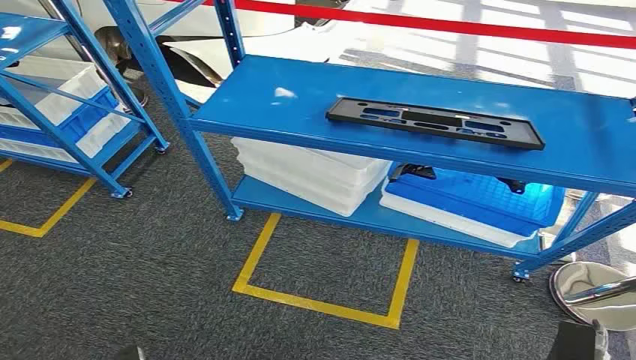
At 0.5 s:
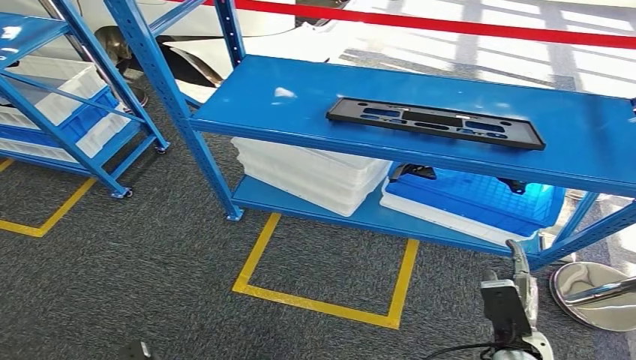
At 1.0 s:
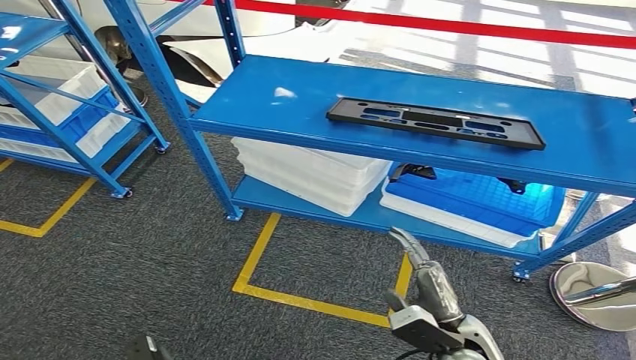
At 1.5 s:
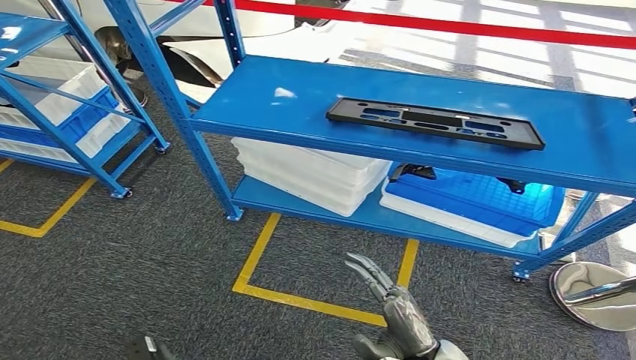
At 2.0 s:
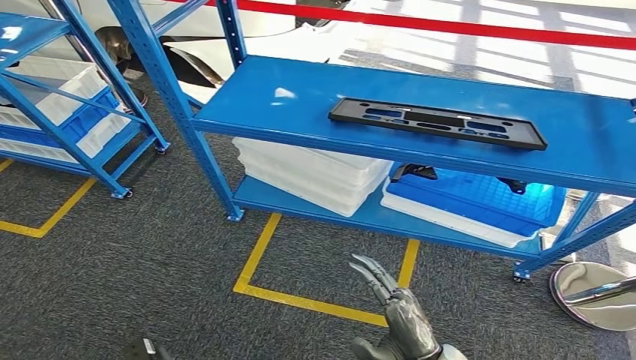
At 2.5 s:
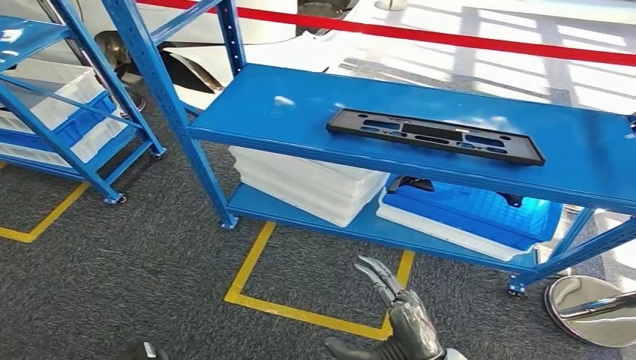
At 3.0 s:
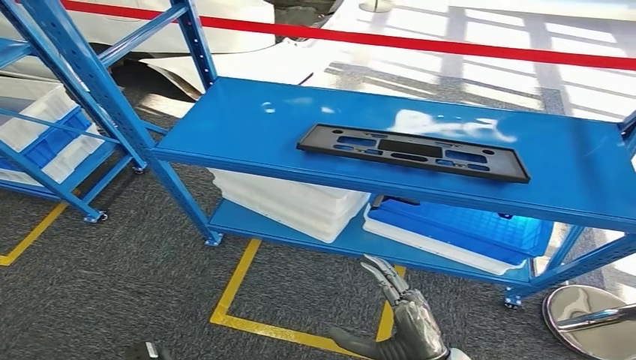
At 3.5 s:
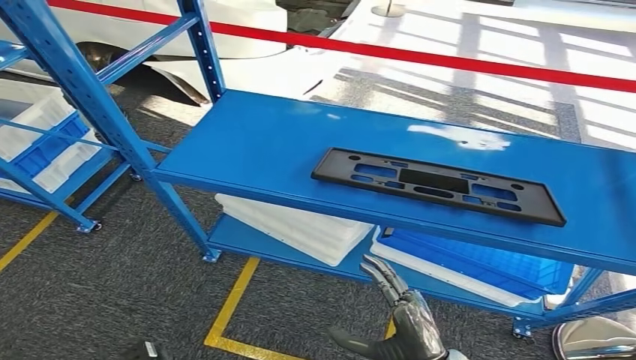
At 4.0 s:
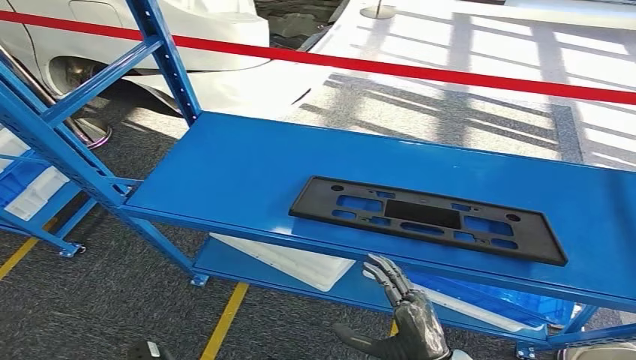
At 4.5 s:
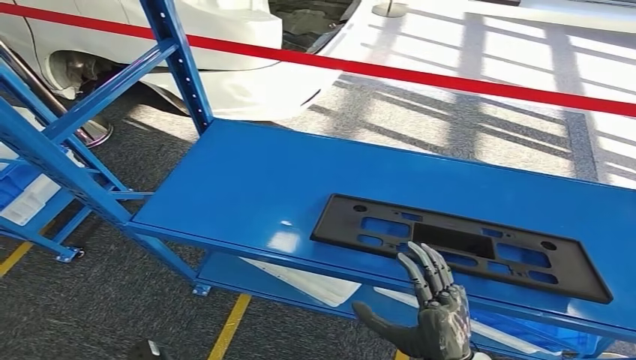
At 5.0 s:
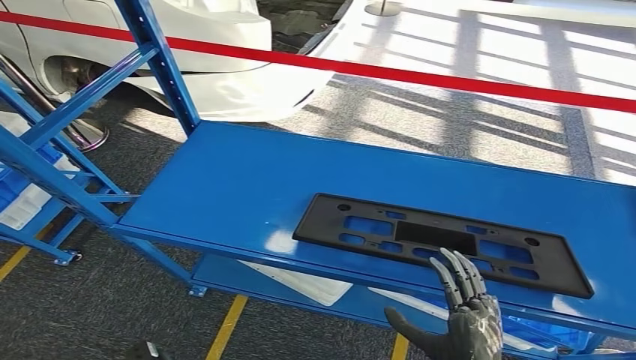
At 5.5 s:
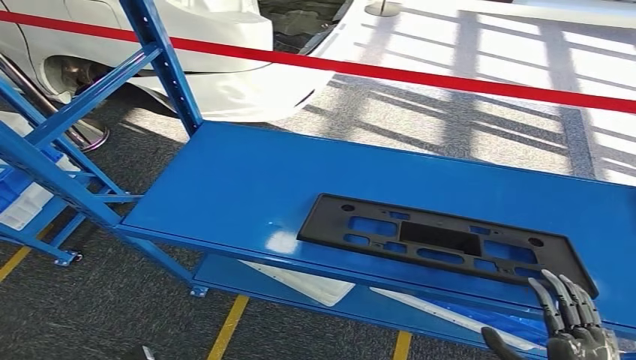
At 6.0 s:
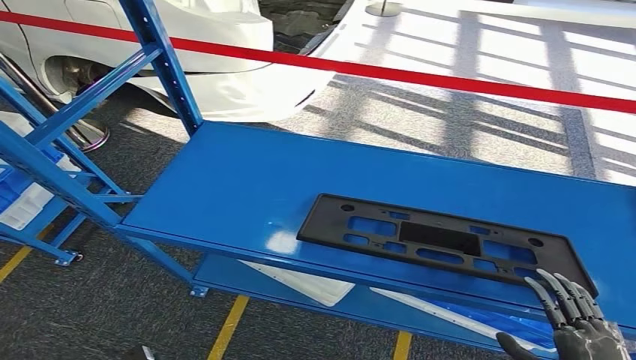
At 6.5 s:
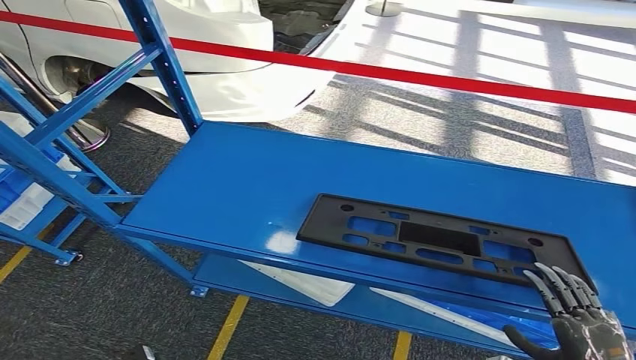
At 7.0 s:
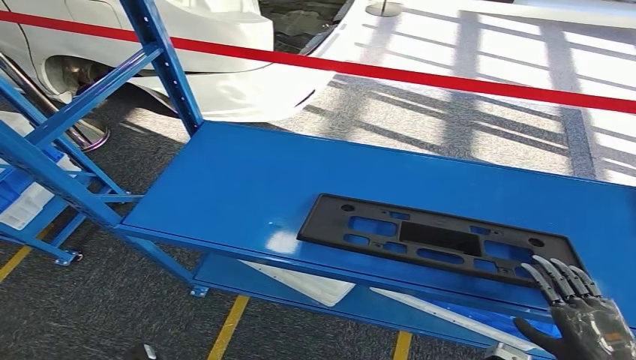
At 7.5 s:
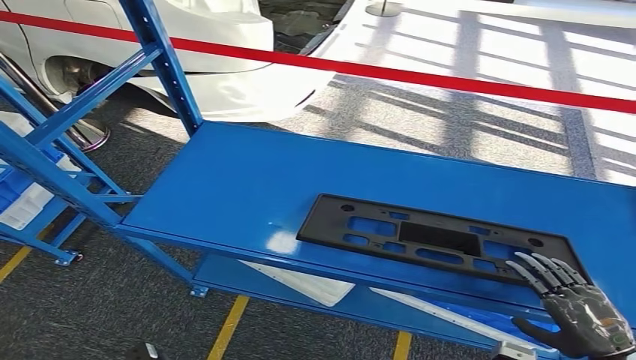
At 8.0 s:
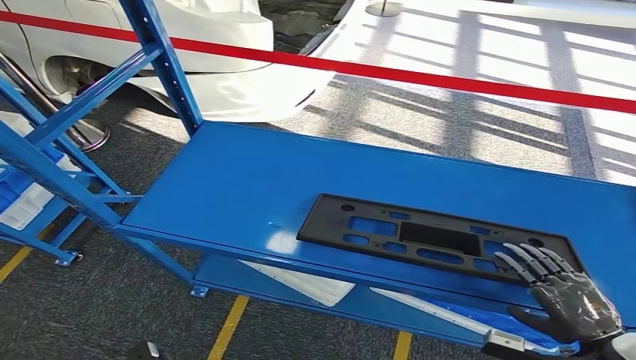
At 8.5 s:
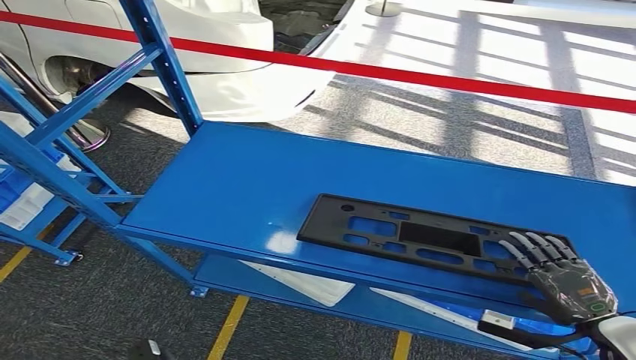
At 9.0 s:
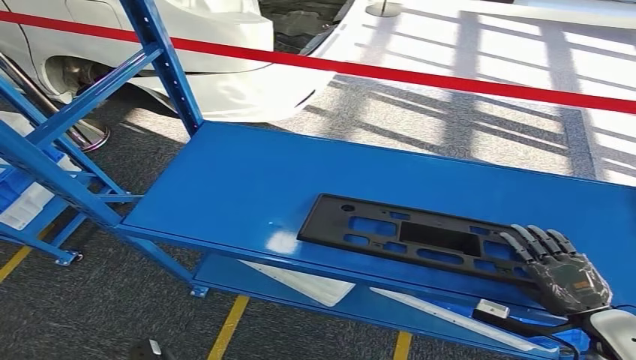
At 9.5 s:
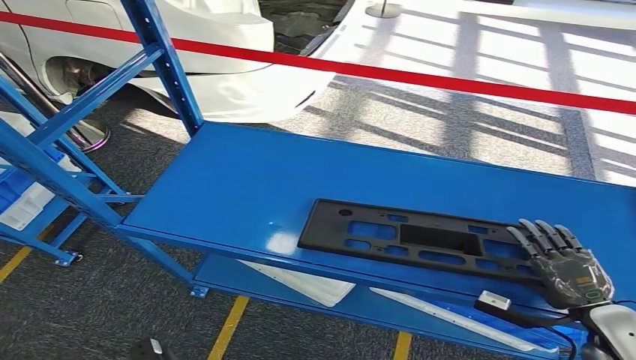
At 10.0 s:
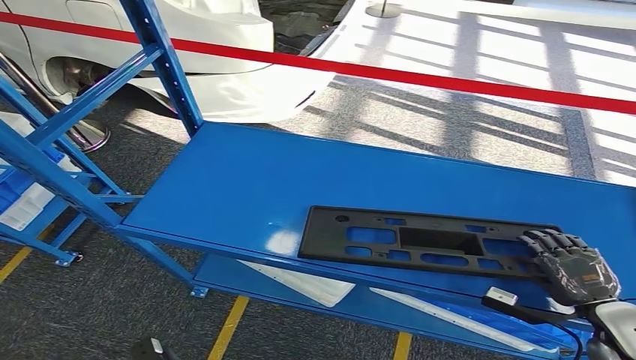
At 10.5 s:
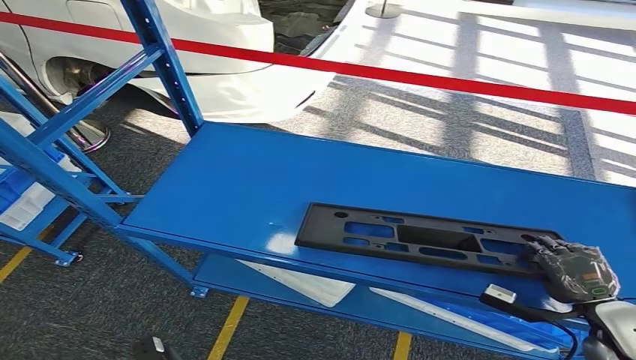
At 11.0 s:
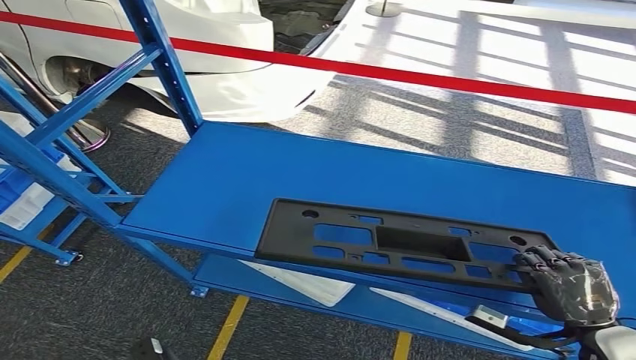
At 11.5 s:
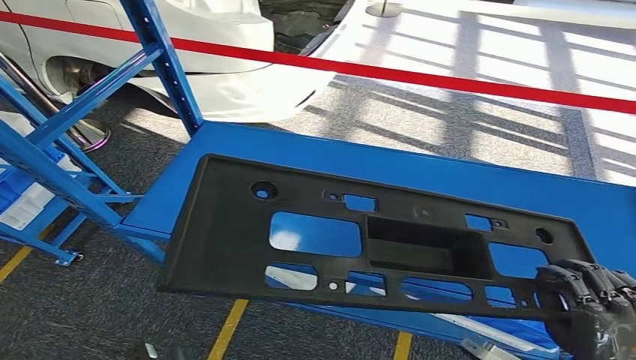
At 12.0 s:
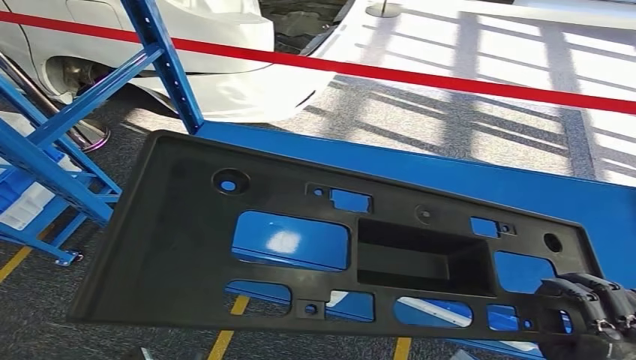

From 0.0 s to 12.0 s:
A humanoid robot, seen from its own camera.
From 6.0 s to 8.0 s: The right hand is displaced forward by roughly 10 cm.
From 8.0 s to 10.0 s: The right hand goes some 5 cm forward.
From 10.0 s to 12.0 s: The right hand travels backward, to the left and upward by some 20 cm.

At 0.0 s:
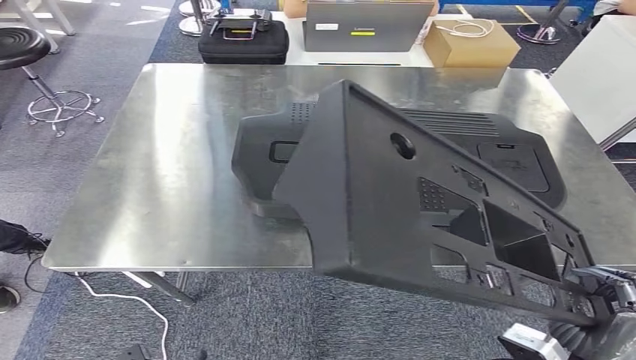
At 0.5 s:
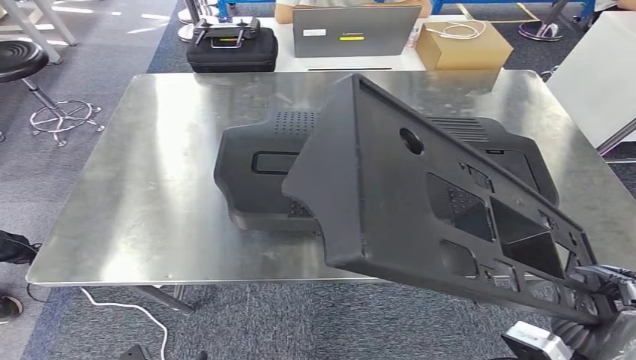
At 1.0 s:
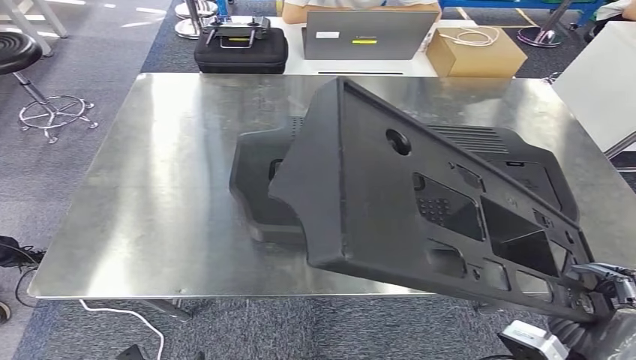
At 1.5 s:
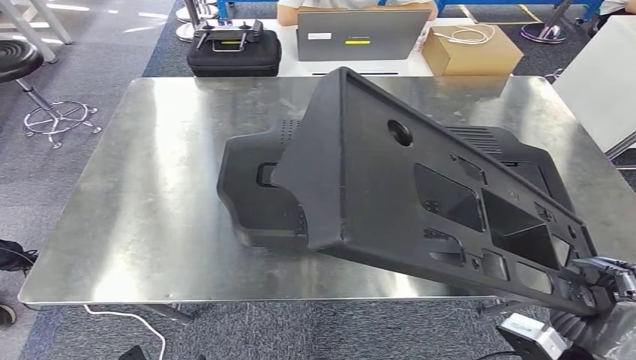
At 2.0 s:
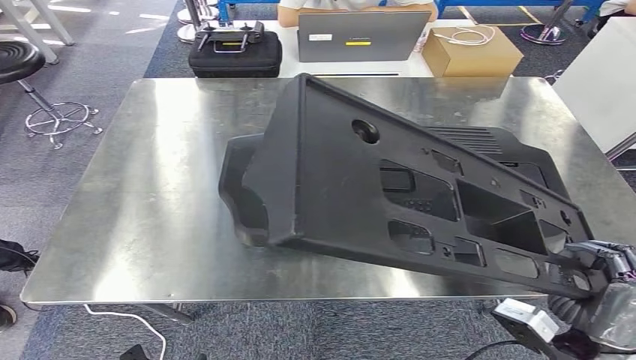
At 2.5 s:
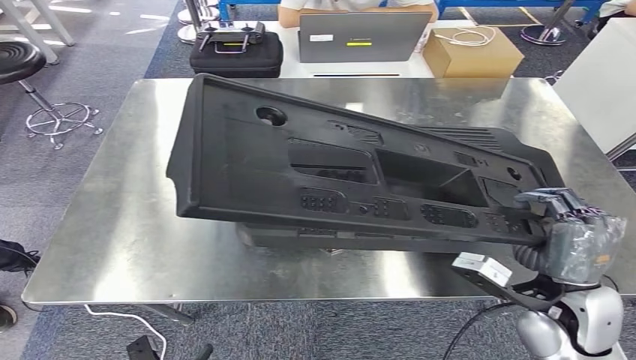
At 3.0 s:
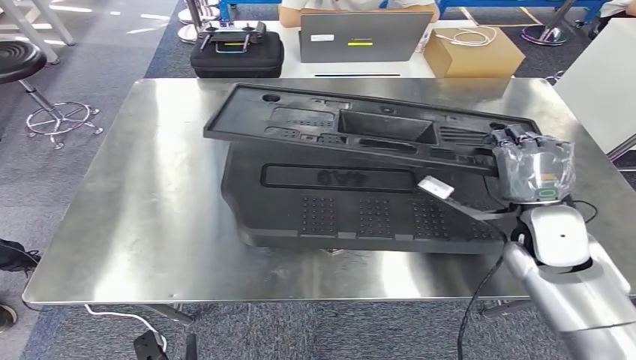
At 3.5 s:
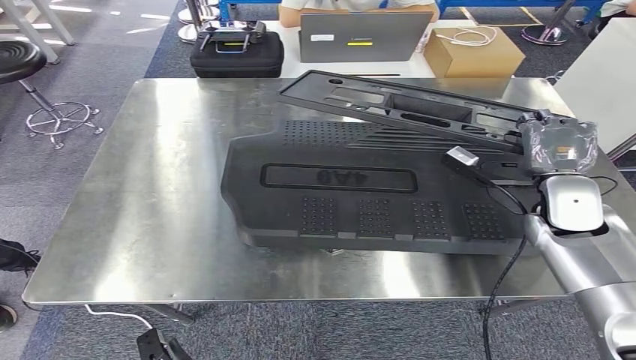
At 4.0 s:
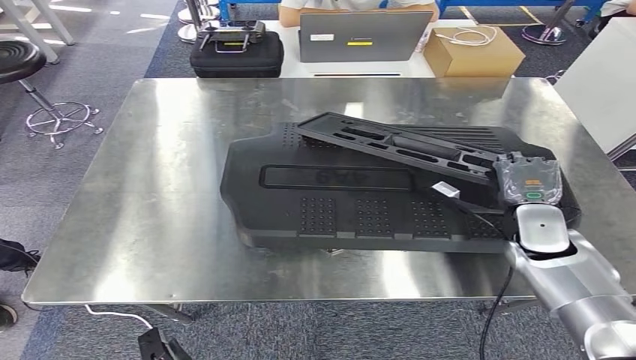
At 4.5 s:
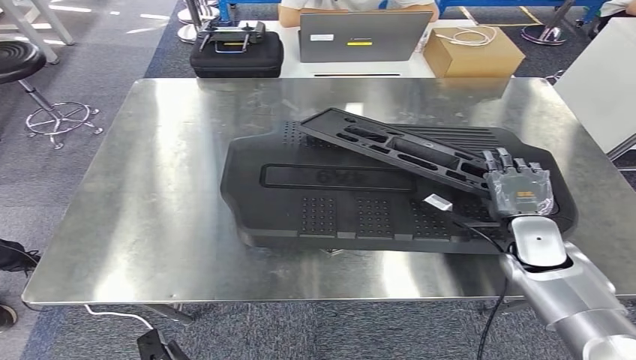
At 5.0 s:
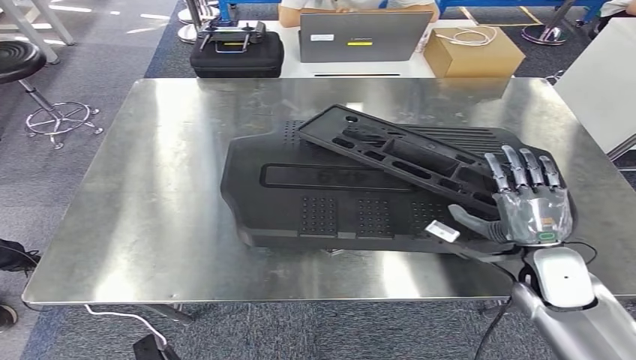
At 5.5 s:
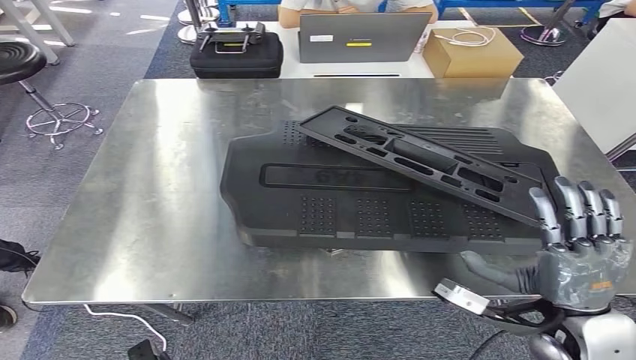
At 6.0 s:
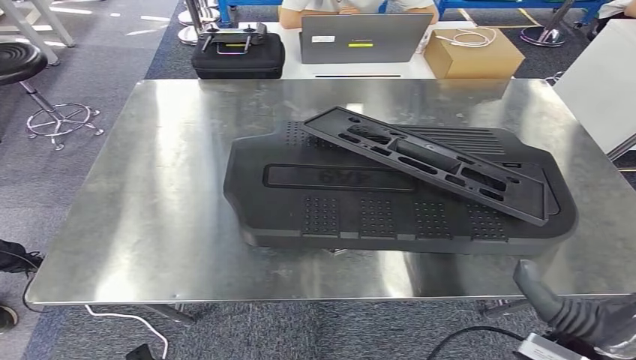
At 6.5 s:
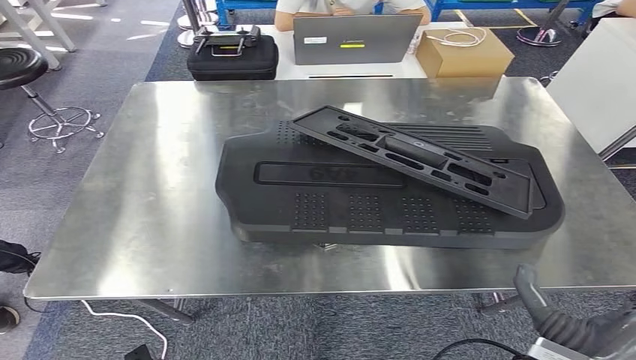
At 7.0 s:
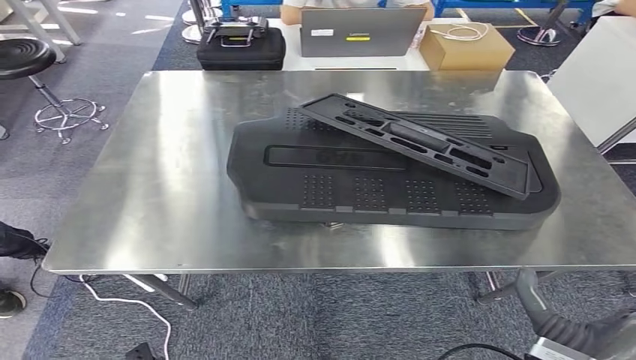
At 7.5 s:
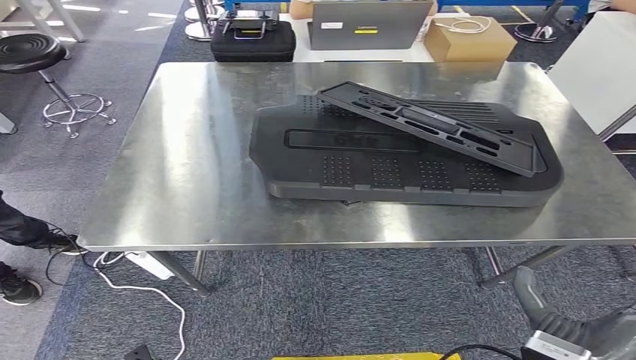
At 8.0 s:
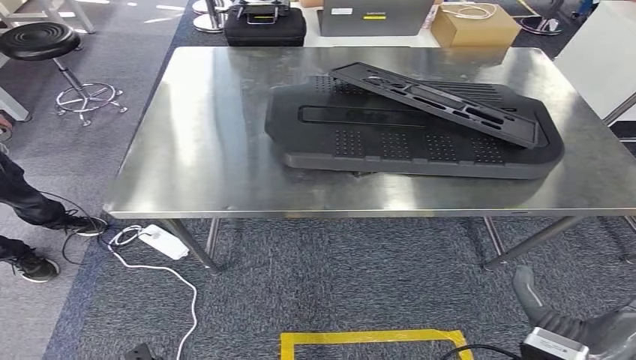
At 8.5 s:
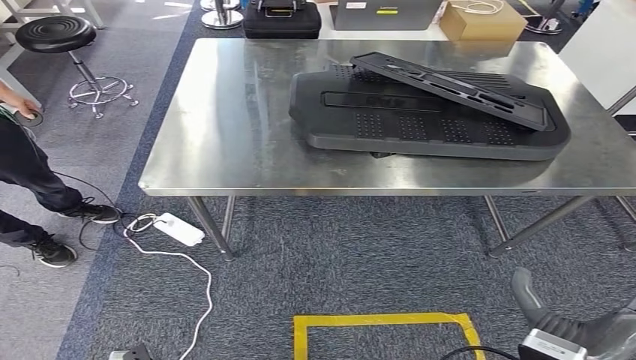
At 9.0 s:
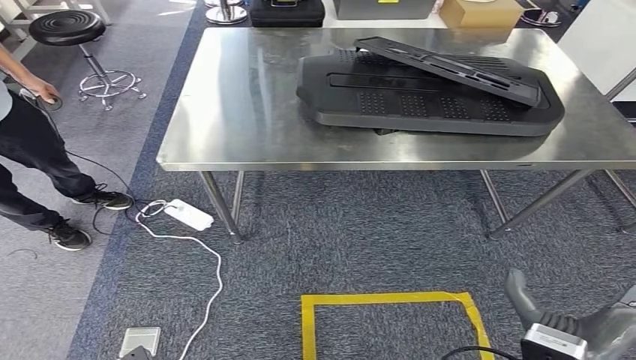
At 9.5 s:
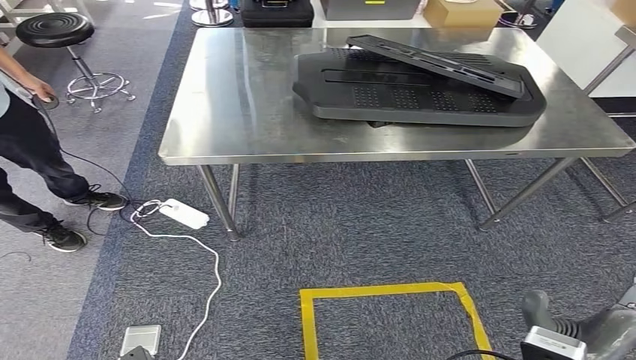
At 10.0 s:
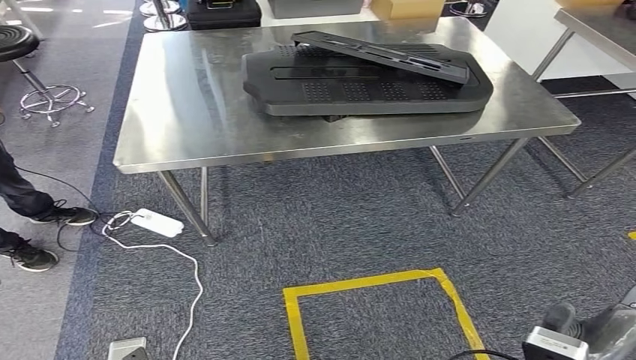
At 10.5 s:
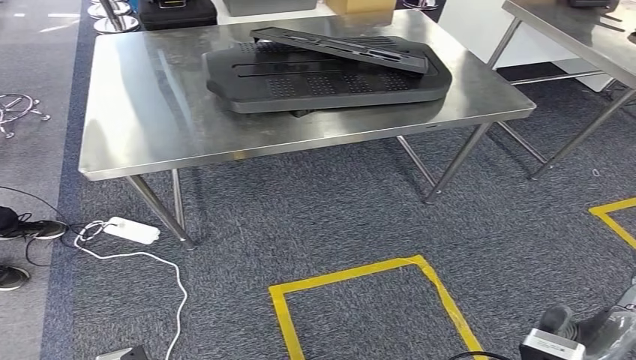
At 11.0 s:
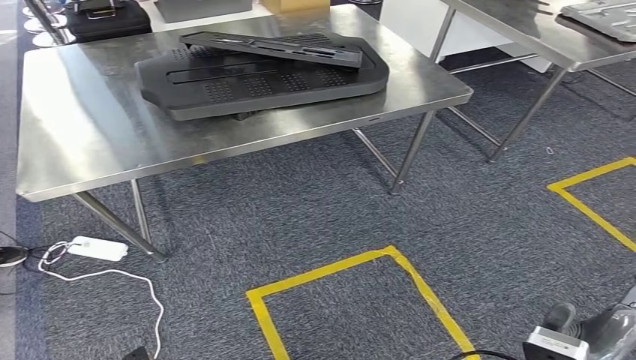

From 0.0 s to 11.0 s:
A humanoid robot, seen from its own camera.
Step, from 1.5 s to 5.5 s: Insert the large material into the corresponding hole on the workbench.
From 3.5 s to 5.5 s: The right hand moves backward, about 20 cm.
